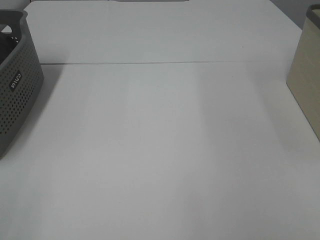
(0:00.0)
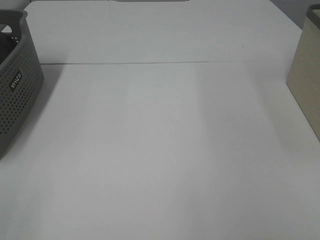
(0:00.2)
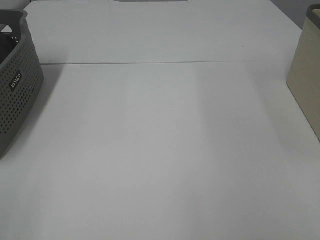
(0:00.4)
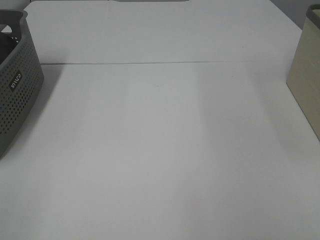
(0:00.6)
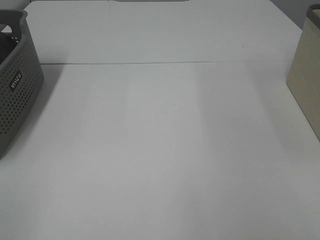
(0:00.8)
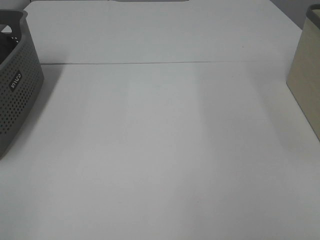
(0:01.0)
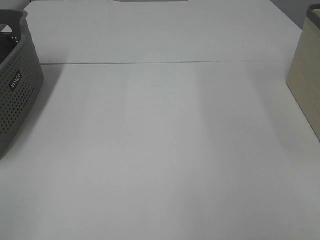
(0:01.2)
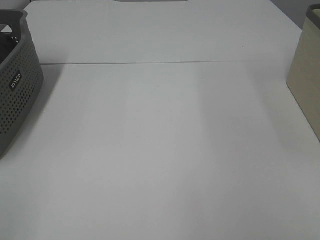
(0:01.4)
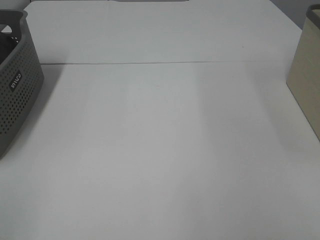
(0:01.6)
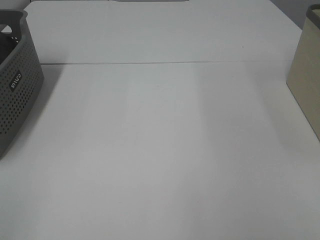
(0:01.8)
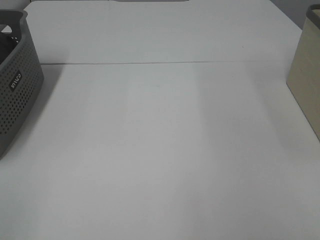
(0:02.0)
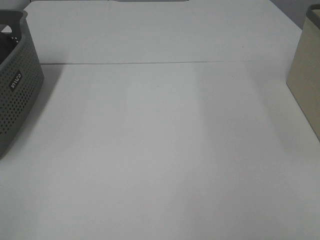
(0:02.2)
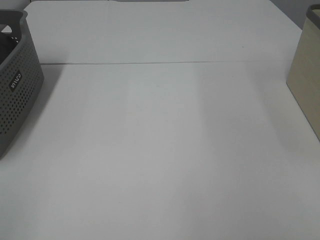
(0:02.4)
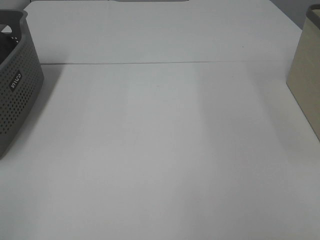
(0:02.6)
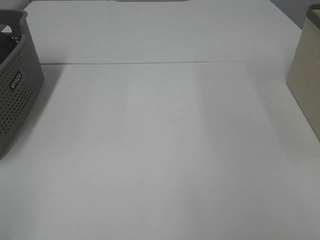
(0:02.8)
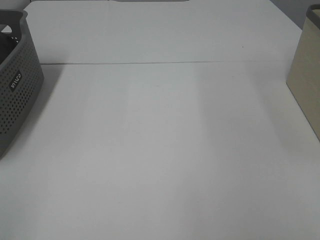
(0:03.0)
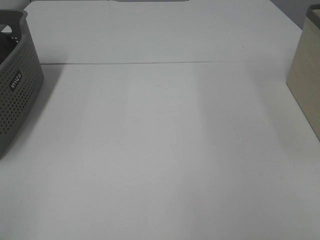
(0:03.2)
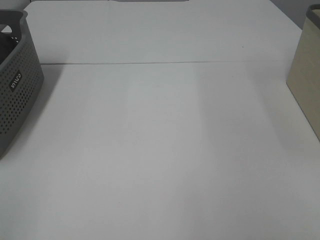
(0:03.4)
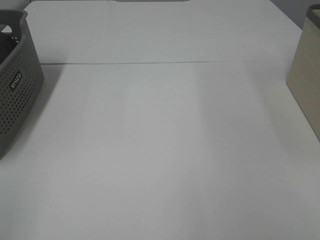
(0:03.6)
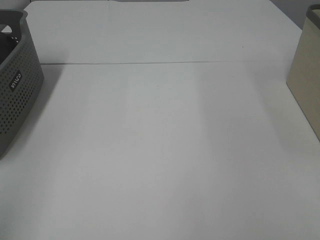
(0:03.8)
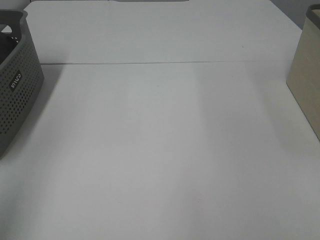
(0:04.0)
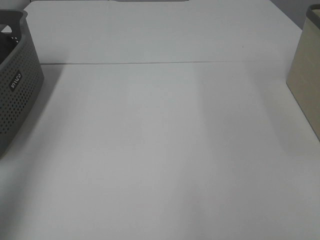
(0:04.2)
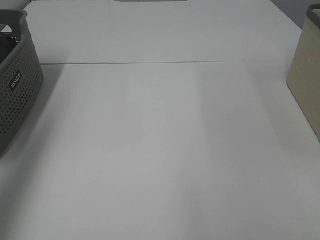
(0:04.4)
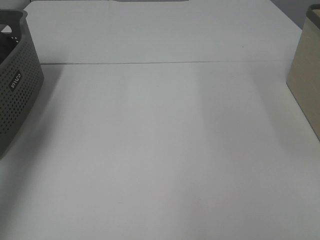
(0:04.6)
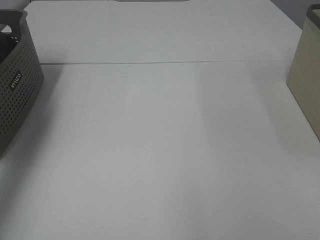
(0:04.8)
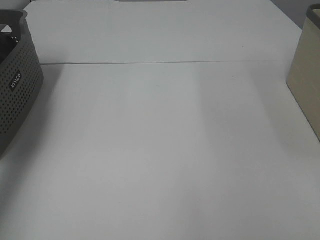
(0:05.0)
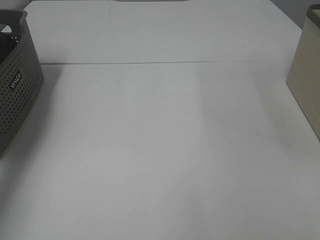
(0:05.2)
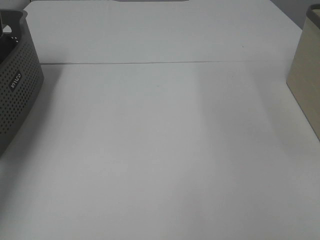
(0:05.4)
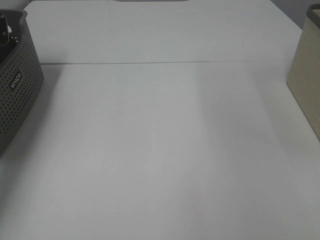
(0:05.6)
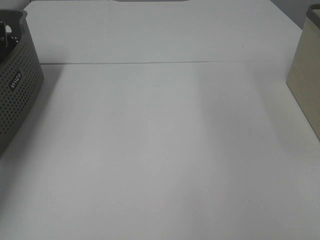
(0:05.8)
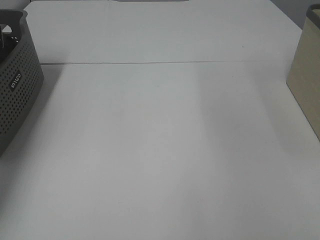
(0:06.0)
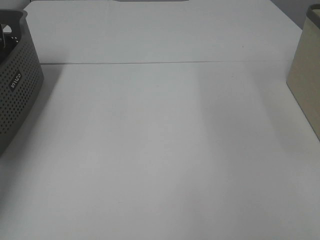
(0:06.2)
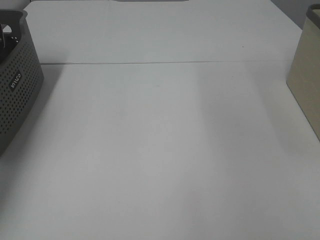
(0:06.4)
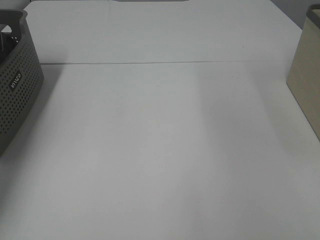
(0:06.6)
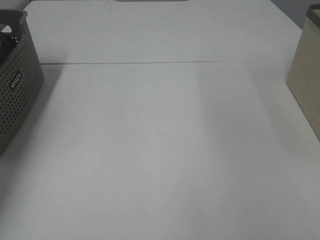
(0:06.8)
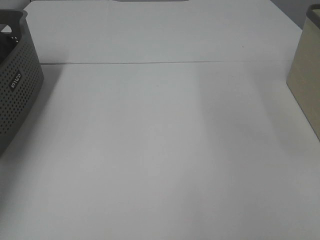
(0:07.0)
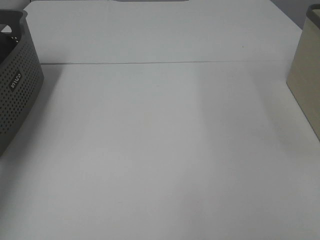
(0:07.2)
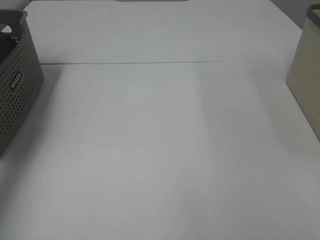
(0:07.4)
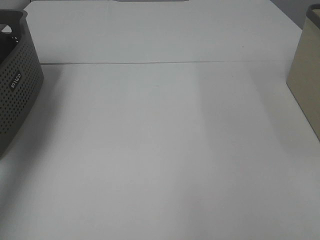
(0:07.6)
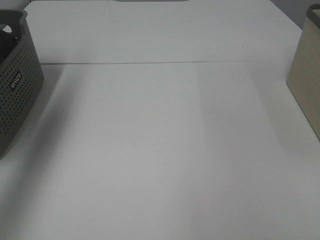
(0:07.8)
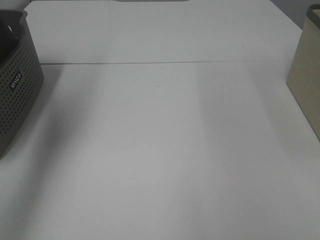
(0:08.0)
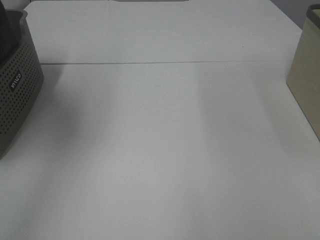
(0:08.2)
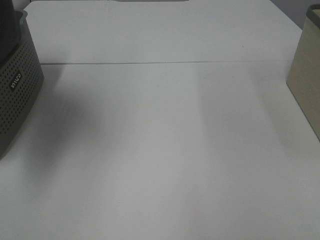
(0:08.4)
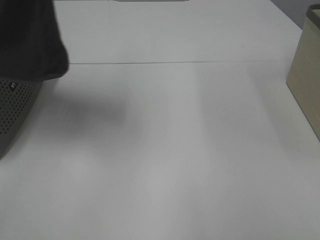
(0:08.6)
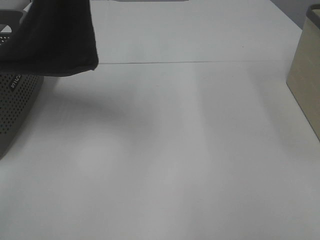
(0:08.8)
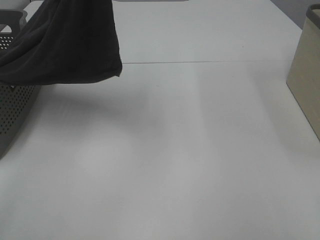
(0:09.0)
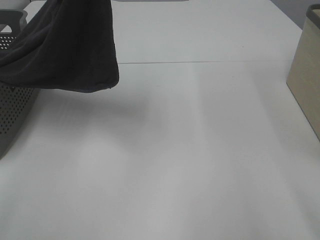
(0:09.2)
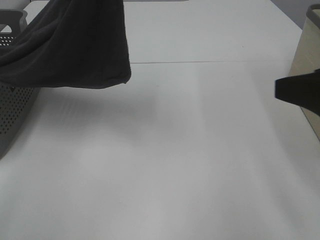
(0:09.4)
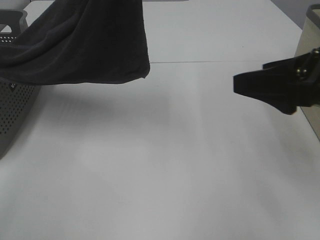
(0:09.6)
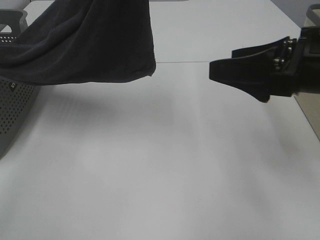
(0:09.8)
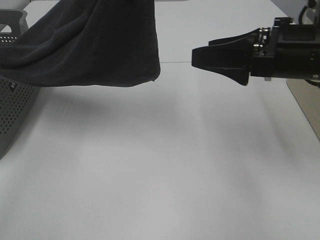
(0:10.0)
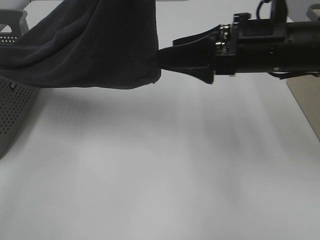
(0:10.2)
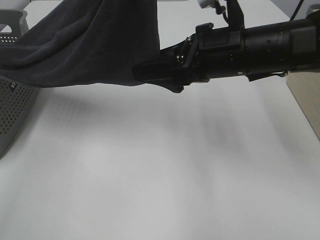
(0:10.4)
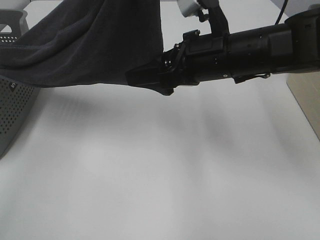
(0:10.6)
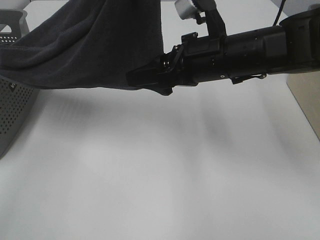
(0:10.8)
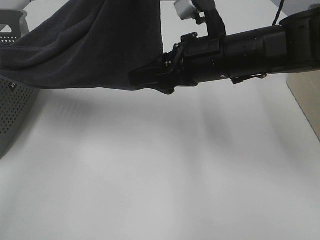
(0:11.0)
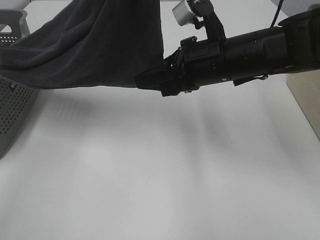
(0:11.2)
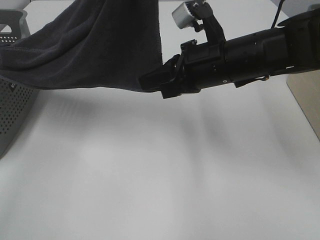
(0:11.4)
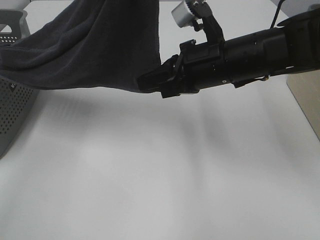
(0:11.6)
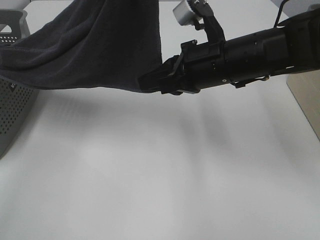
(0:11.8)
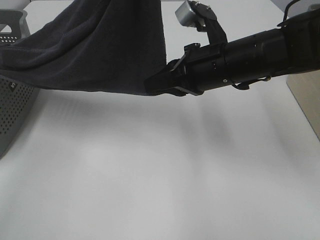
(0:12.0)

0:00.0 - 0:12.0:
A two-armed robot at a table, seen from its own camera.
Task of the whole recording: Remove the towel and place it.
0:00.0 - 0:03.0: The two grippers keep their place.
0:03.0 - 0:04.4: The left gripper heads forward and upward, covering roughly 25 cm.
0:04.4 - 0:06.0: The left gripper travels forward and downward by some 30 cm.
0:06.0 - 0:07.6: The left gripper goes about 20 cm upward and backward, and closes.
0:07.6 - 0:09.0: The left gripper heads to the right, covering roughly 25 cm. Meanwhile the right gripper moves some 5 cm.
0:09.0 - 0:10.4: The right gripper moves forward and to the left, roughly 30 cm.
0:10.4 - 0:12.0: The right gripper closes up.

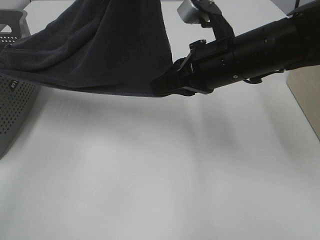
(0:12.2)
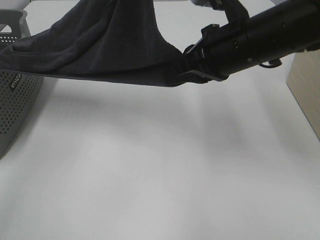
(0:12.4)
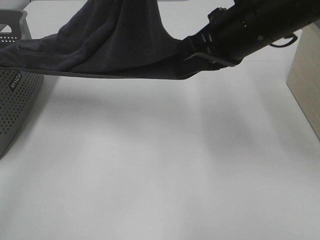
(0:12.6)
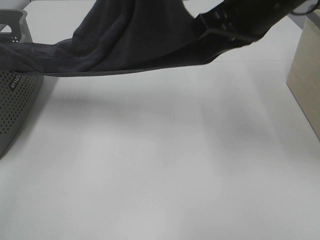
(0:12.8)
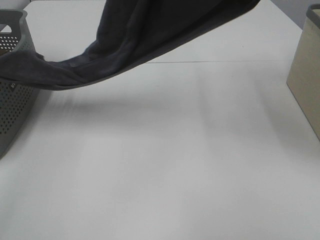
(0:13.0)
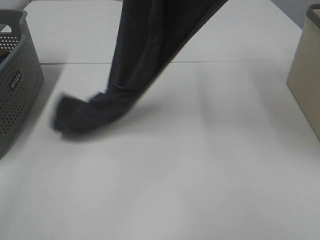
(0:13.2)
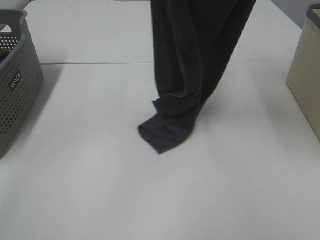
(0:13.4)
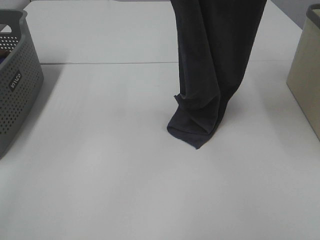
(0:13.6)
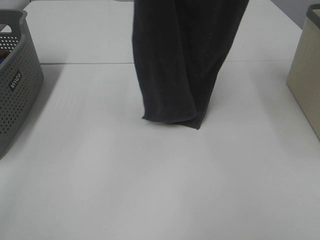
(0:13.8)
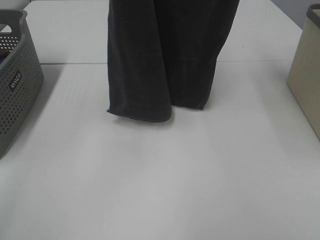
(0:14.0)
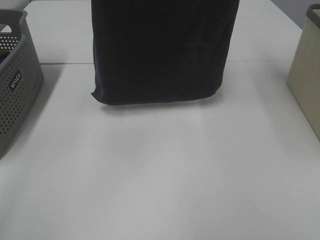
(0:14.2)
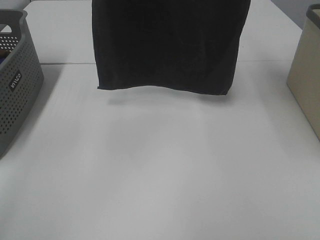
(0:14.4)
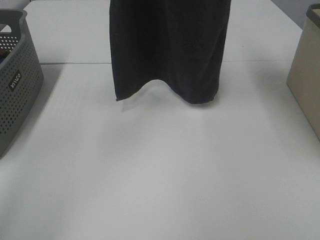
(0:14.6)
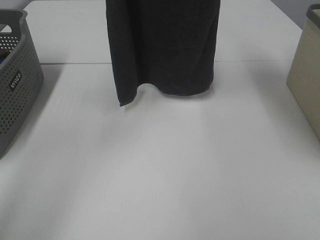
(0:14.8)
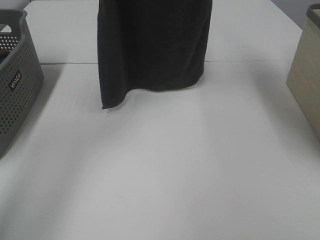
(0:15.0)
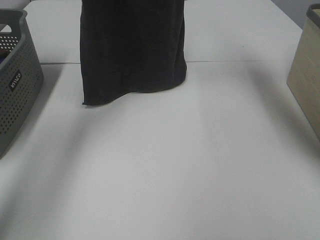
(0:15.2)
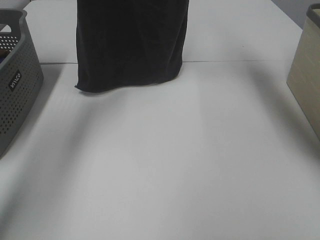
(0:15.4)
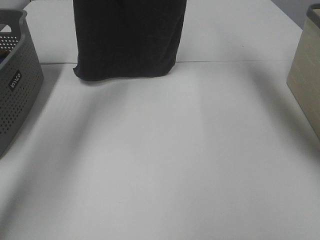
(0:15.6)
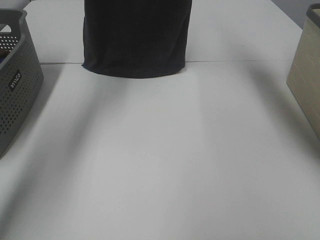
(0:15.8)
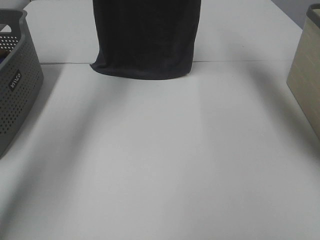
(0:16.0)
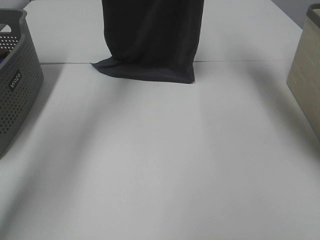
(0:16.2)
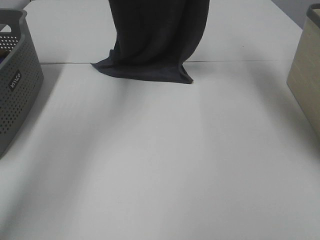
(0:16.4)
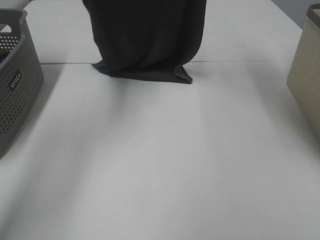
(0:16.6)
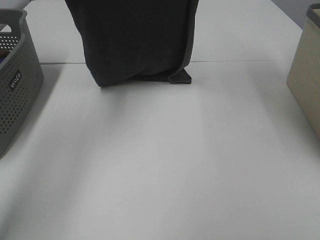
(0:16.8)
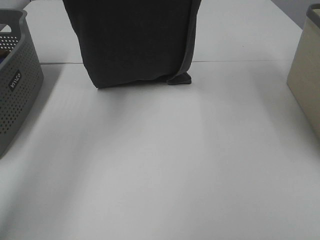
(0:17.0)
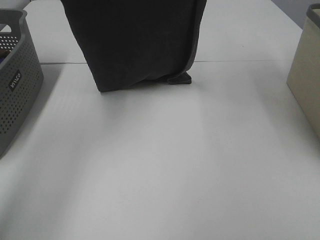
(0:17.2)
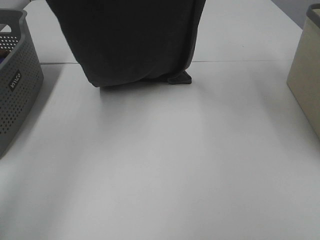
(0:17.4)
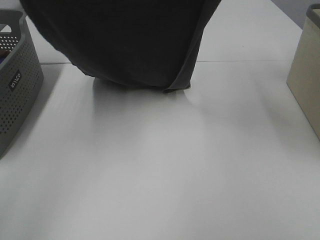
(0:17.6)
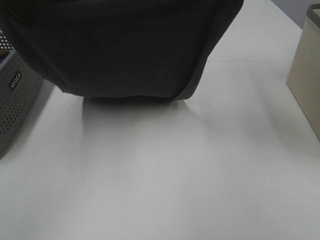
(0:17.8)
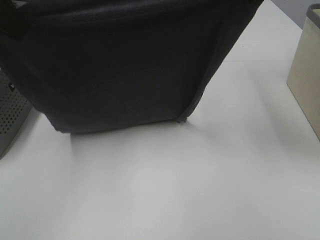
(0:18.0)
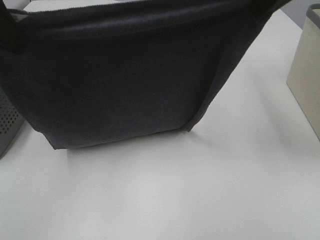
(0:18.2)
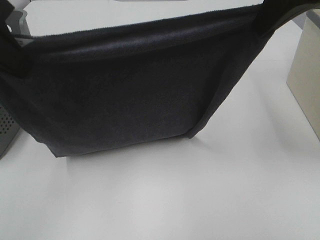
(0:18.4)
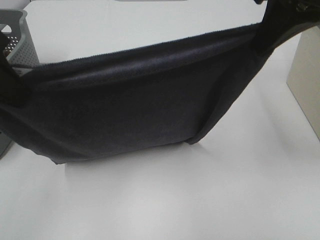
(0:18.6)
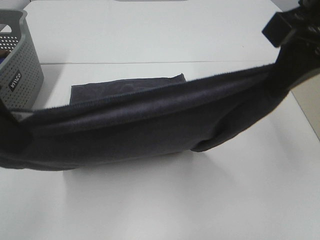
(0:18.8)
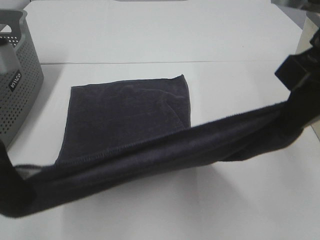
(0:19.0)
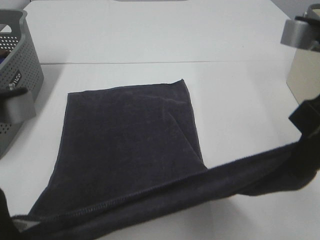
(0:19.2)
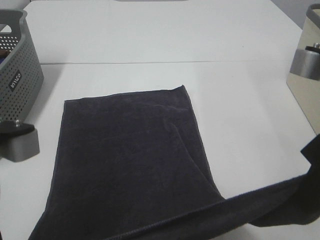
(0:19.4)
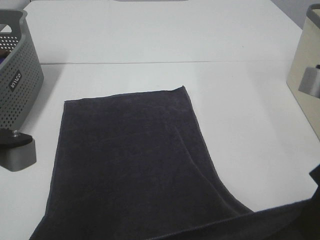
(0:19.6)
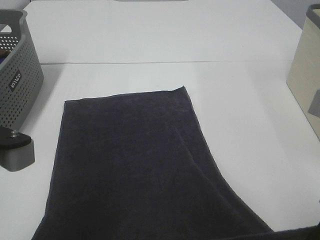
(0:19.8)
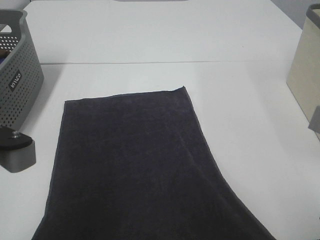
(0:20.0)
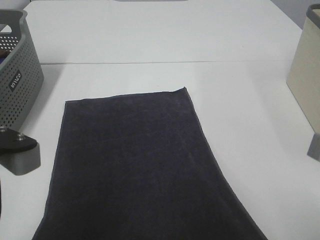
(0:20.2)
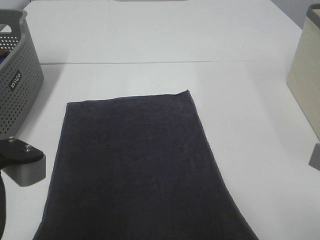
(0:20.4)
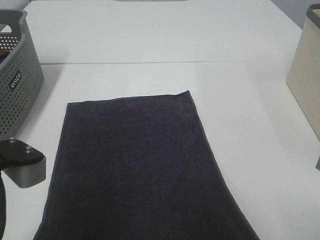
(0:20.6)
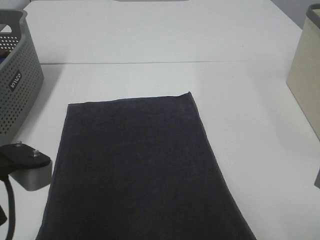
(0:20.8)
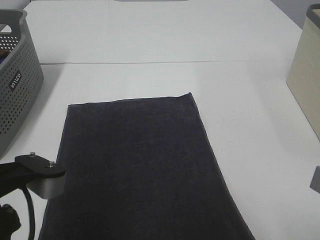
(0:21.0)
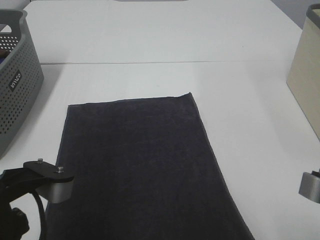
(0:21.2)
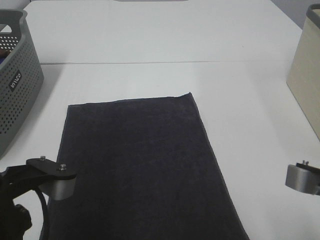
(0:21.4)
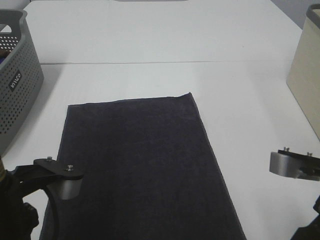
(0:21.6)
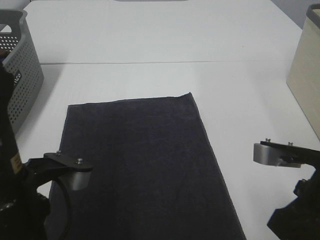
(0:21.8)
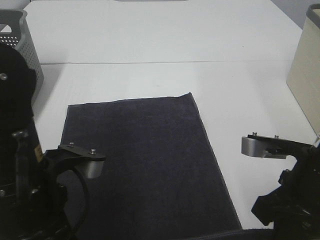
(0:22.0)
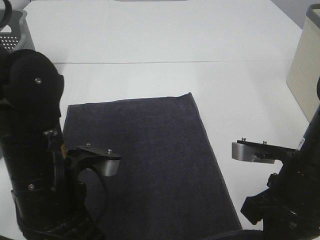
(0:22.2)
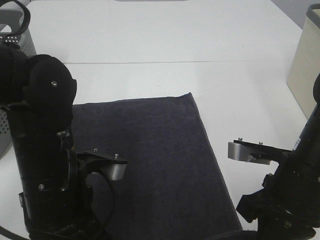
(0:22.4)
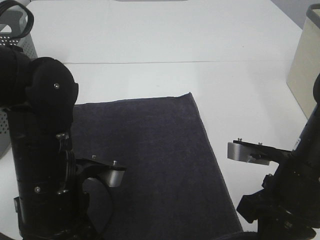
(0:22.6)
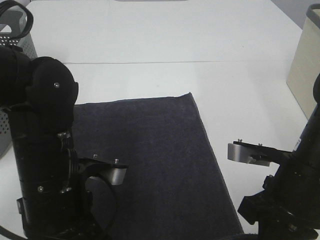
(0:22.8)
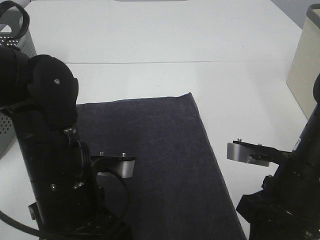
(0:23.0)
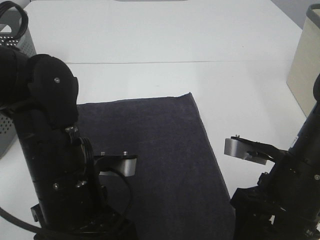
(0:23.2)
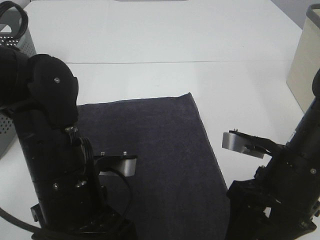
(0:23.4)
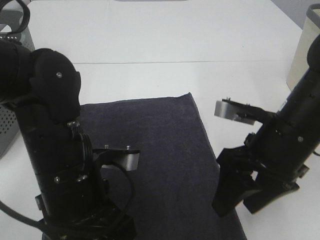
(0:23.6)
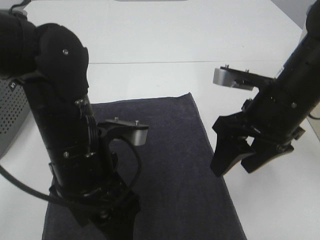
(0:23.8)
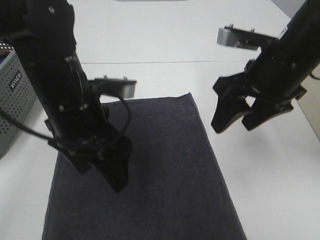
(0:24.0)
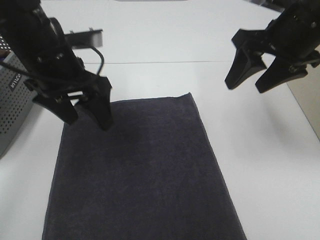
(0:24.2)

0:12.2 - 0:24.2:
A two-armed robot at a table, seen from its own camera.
Task of the whole recording: Remove the towel and place it.
Step, 0:12.8 - 0:18.8: Left hand: spread the grey towel flat on the table.
Step, 0:12.8 - 0:18.8: Right hand: spread the grey towel flat on the table.
0:12.2 - 0:13.8: The left gripper shifts about 5 cm upward; the right gripper shifts roughly 30 cm upward.
0:13.8 - 0:15.2: The right gripper shifts some 15 cm forward and to the left. Meanwhile the left gripper shifts about 15 cm forward, downward and to the left.
0:16.6 - 0:18.2: The two grippers go approximately 20 cm backward.
0:18.2 - 0:19.8: The right gripper moves backward and downward, about 20 cm; the left gripper moves downward and backward, roughly 20 cm.
0:19.8 - 0:21.2: The right gripper shifts roughly 5 cm downward.
0:21.2 - 0:22.6: The right gripper shifts about 10 cm forward; the left gripper travels forward by approximately 5 cm.
0:22.6 - 0:24.2: The two grippers go approximately 20 cm forward and upward. The left gripper opens its fingers. The right gripper opens up.
